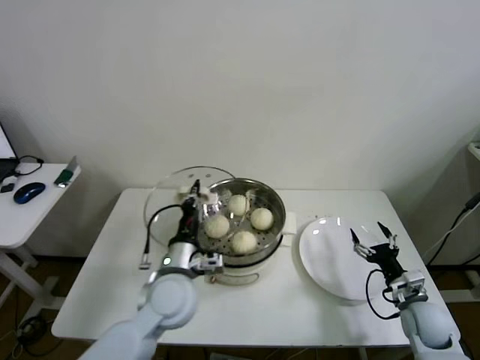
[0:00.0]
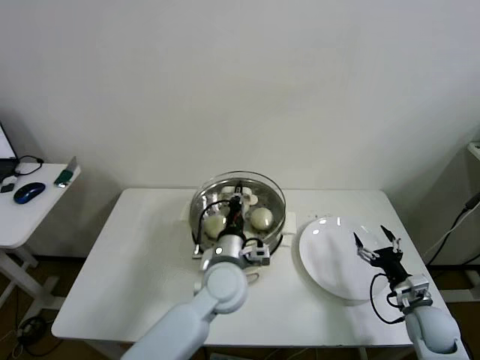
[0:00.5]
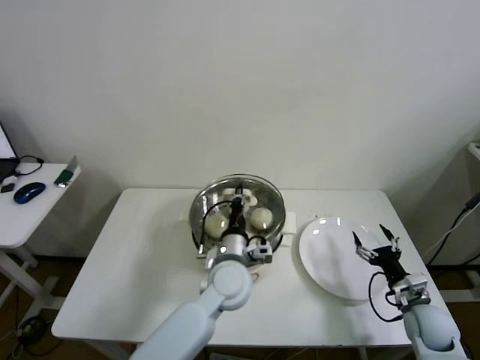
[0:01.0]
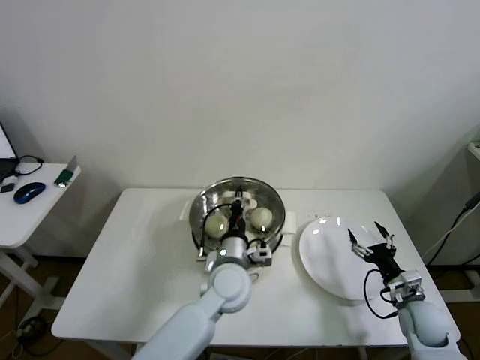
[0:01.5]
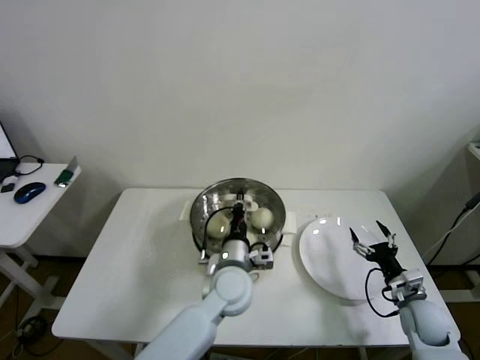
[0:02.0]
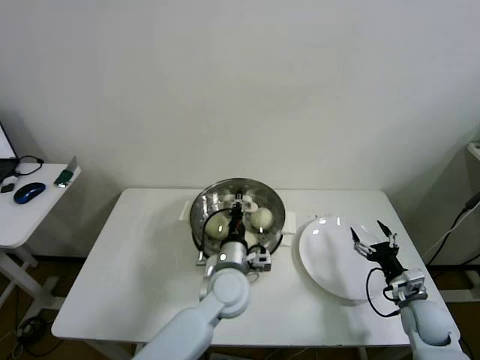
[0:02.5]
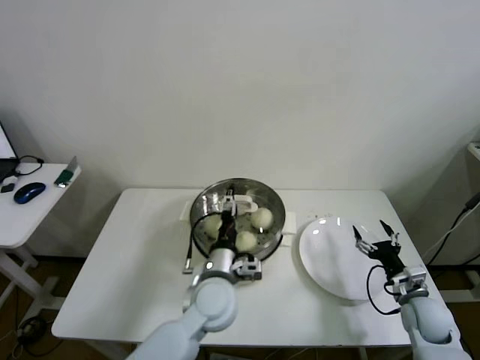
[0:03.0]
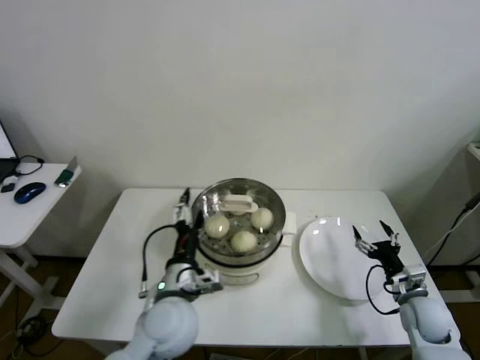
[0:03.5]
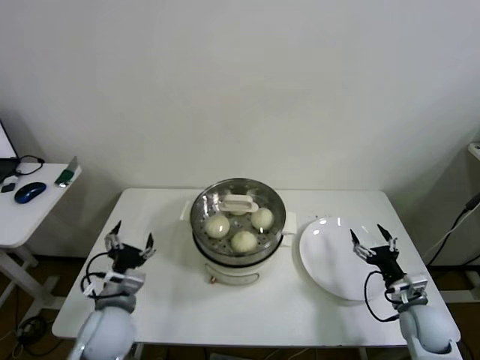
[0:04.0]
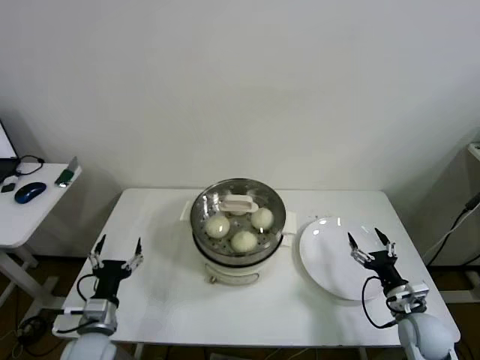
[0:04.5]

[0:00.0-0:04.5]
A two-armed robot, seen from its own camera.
Step, 0.0 to 3.0 s: Place the pot lid on the steamer with left gripper.
0.0 to 2.0 s: The left gripper travels to the right by some 10 cm.
2.0 to 4.5 s: The left gripper heads to the left, covering approximately 30 cm, and opens its fingers.

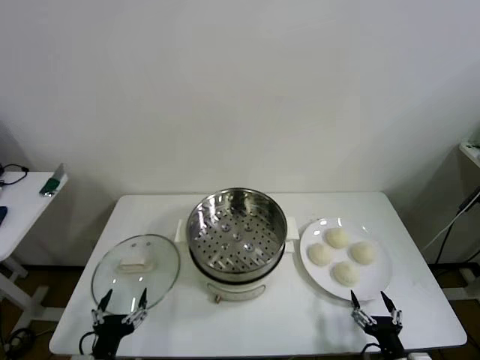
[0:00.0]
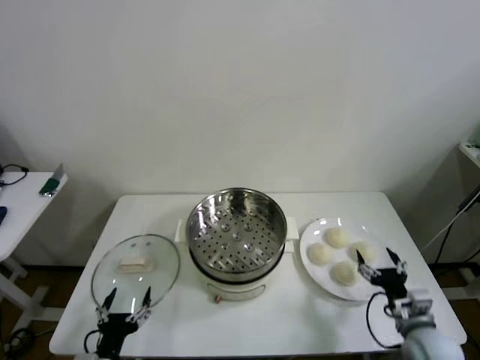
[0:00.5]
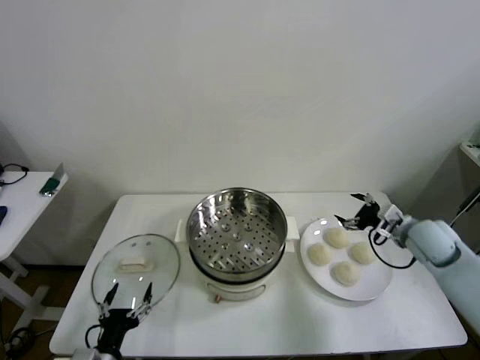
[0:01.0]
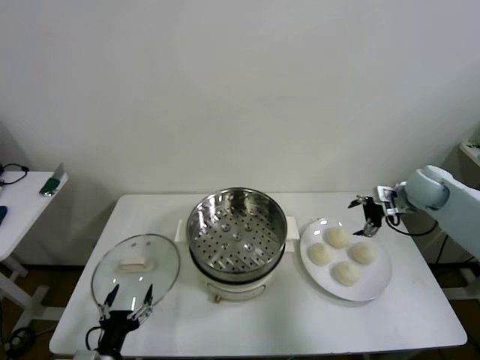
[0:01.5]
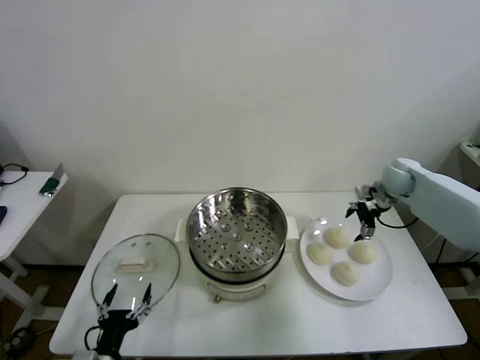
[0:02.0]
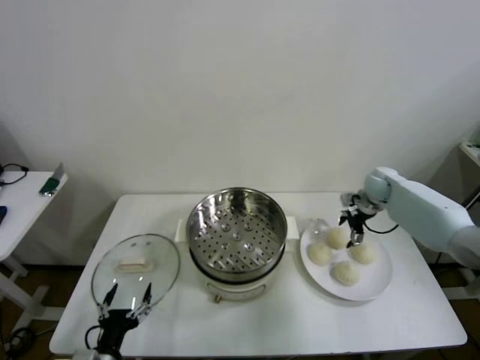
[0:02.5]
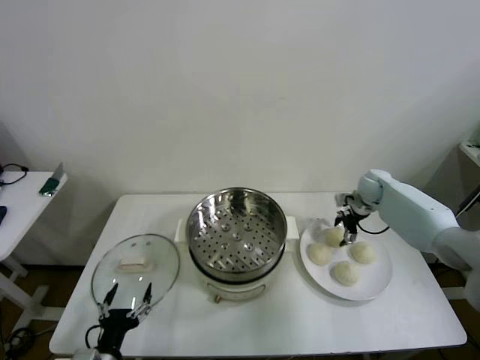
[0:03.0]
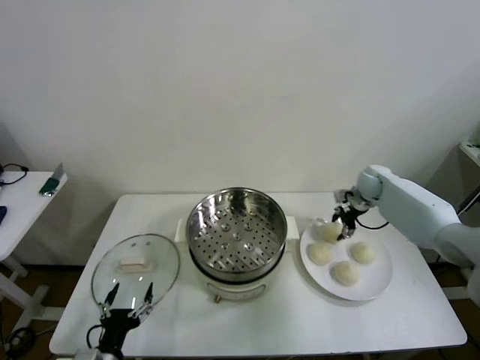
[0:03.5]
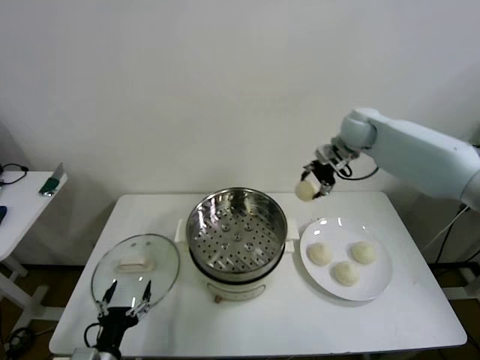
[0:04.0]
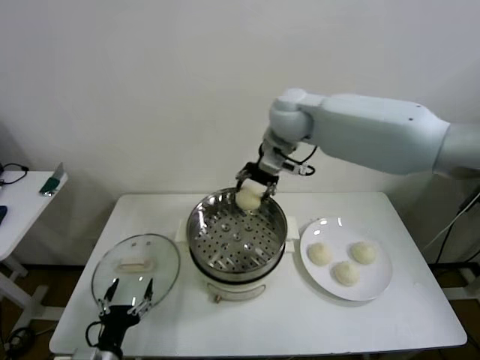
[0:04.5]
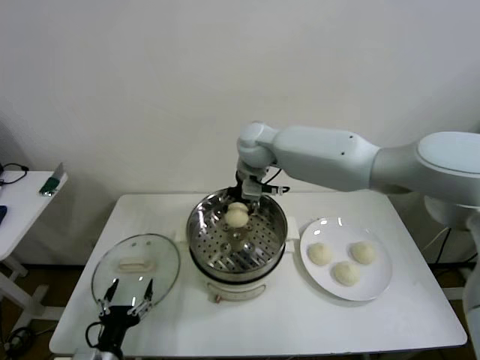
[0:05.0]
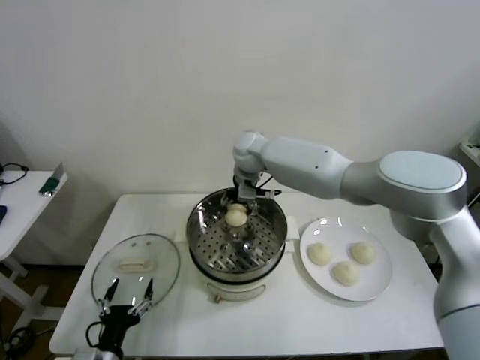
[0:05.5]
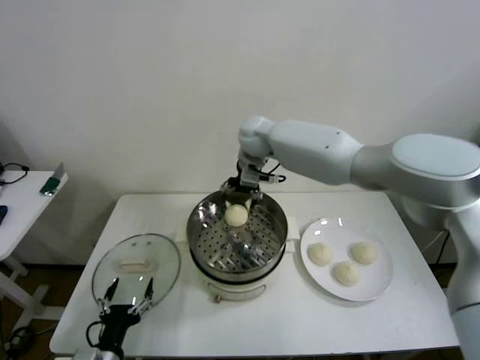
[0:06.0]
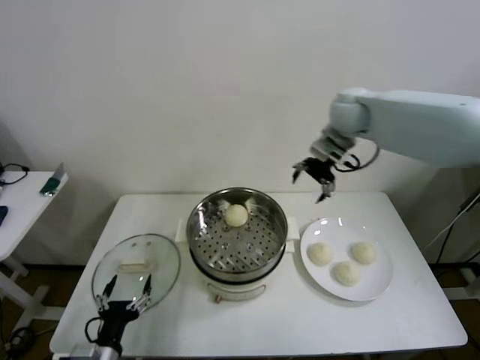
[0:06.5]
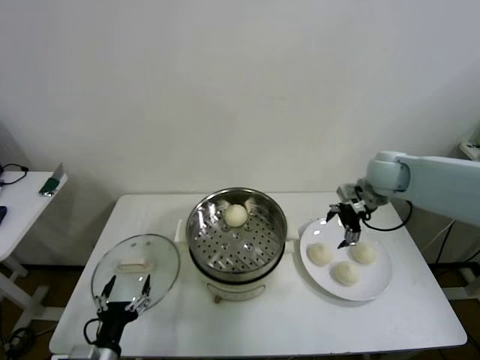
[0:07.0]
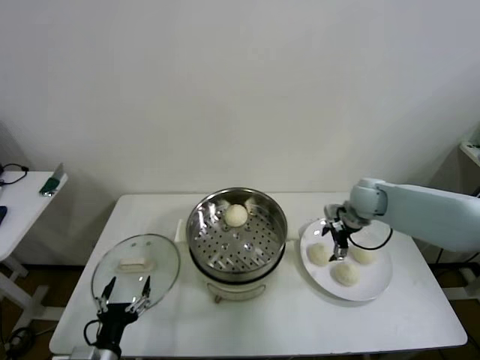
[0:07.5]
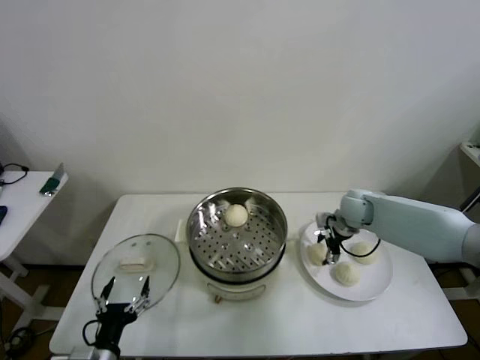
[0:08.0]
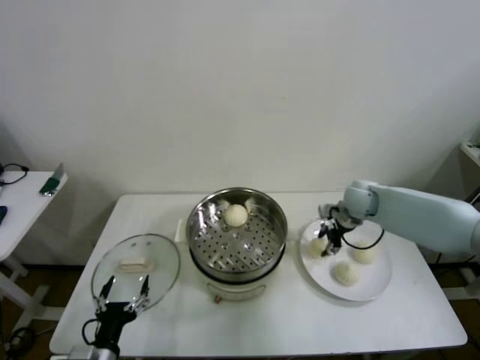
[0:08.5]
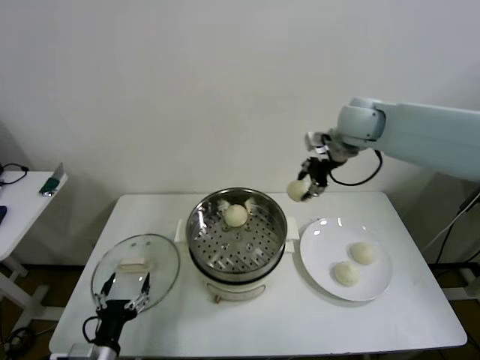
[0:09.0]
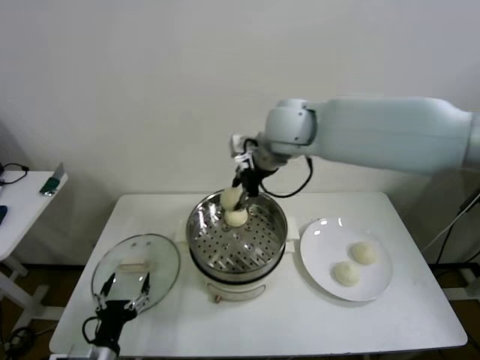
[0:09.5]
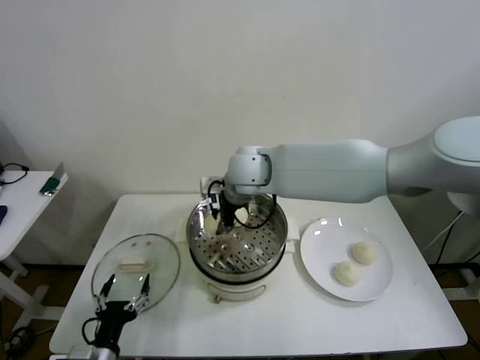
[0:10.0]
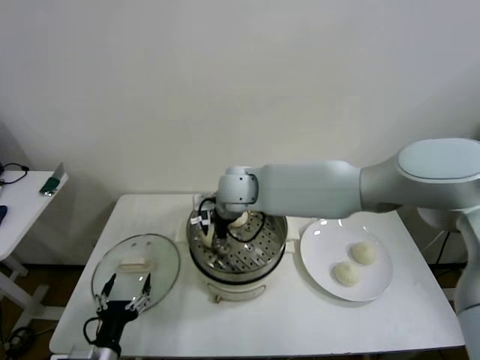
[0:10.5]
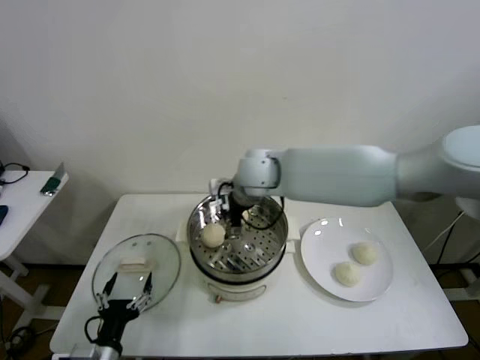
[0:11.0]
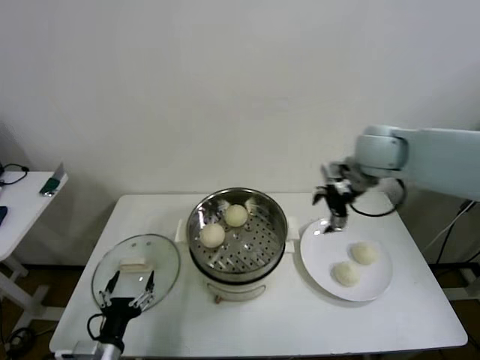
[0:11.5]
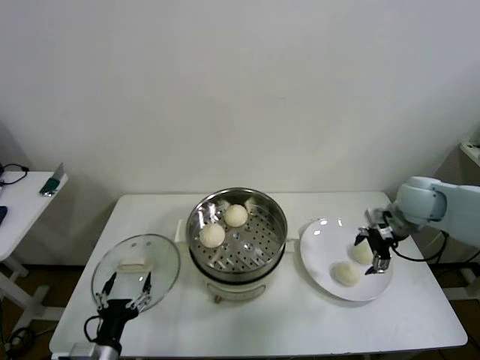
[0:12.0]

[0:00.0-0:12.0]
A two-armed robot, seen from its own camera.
Step, 0.0 to 3.0 s: Grasp the baozi in the plate with right gripper.
Step, 3.5 to 6.0 s: Place the baozi on the steamer with right gripper.
Step, 6.5 to 8.0 s: Grasp the baozi in the plate with right gripper.
Step, 8.5 to 10.5 s: Place the baozi on the steamer with right gripper.
2.0 to 4.0 s: The right gripper travels upward and to the left by approximately 25 cm, and closes up.
4.0 to 6.0 s: The right gripper heads to the left, covering approximately 20 cm, and opens its fingers.
6.0 to 8.0 s: The right gripper shifts some 30 cm to the right and downward, and closes.
8.0 to 10.0 s: The right gripper is displaced to the left and upward by about 35 cm, and closes up.
10.0 to 12.0 s: The right gripper heads to the right, covering roughly 35 cm, and opens.

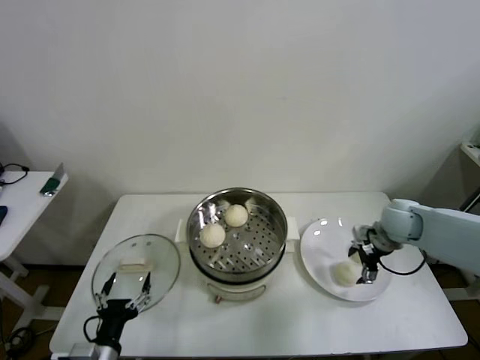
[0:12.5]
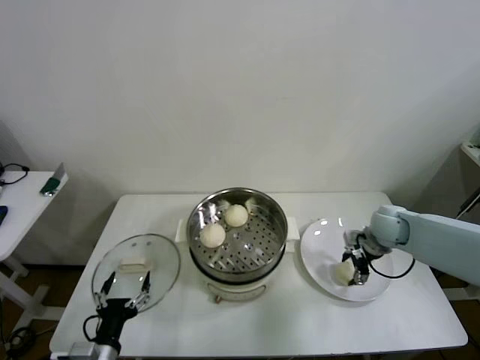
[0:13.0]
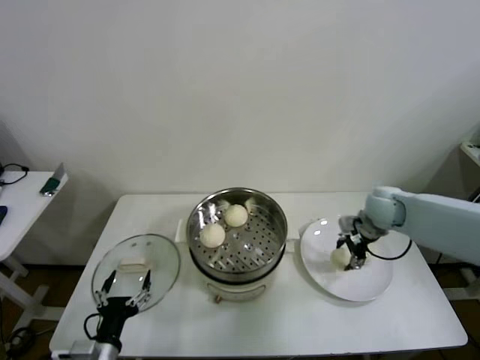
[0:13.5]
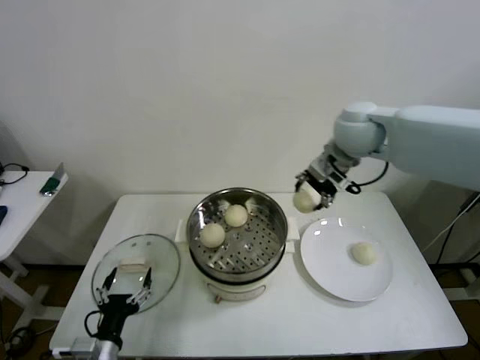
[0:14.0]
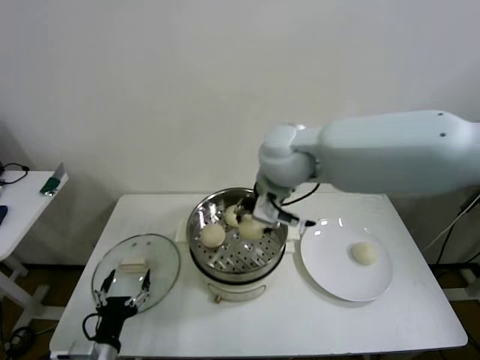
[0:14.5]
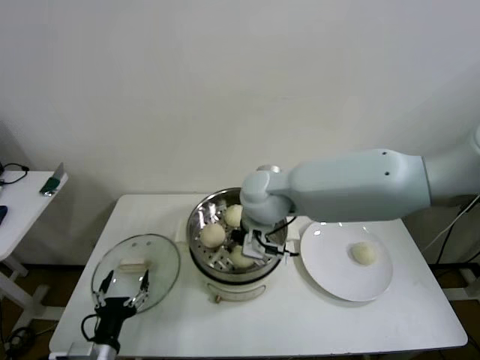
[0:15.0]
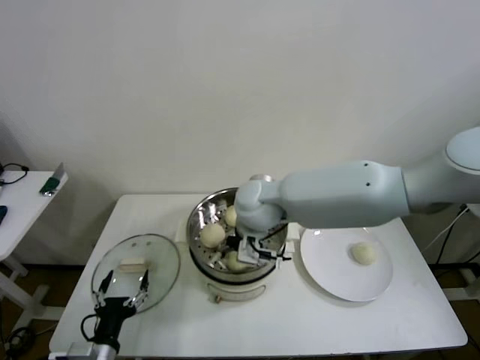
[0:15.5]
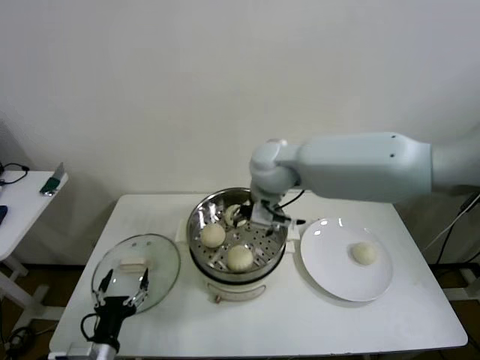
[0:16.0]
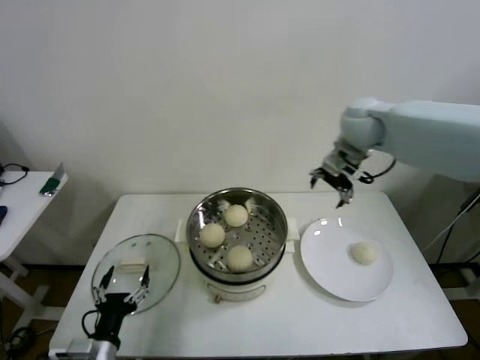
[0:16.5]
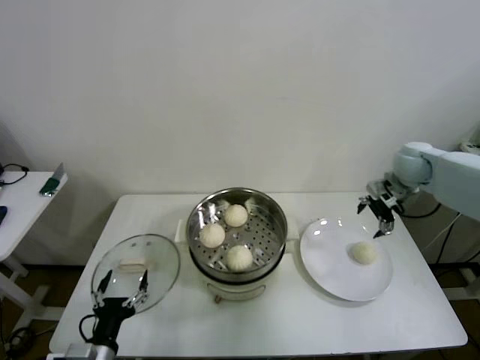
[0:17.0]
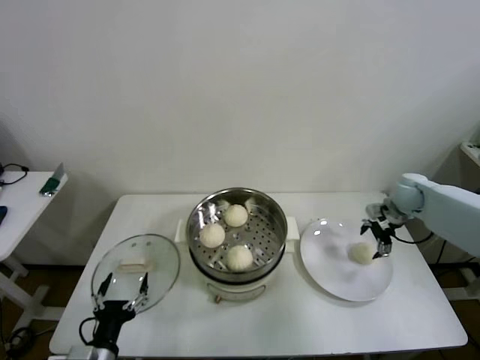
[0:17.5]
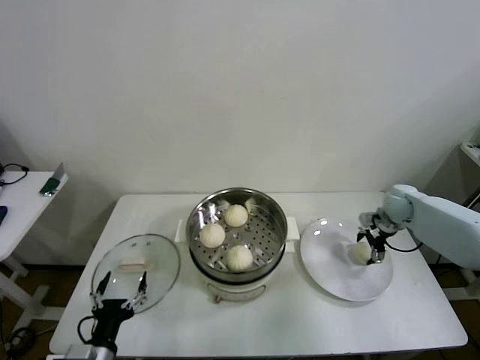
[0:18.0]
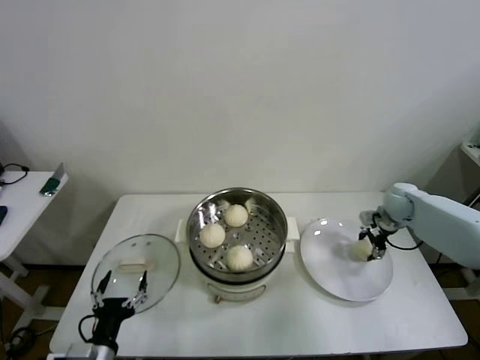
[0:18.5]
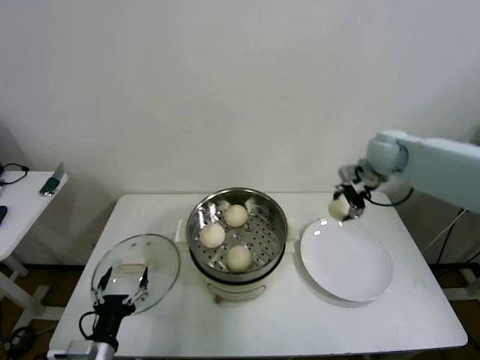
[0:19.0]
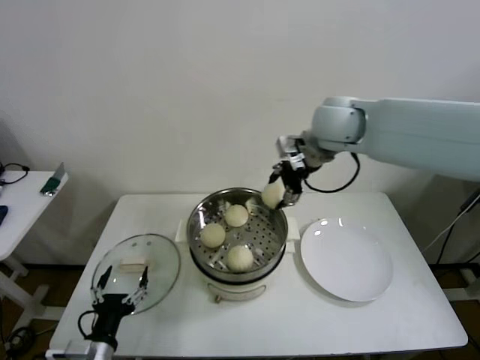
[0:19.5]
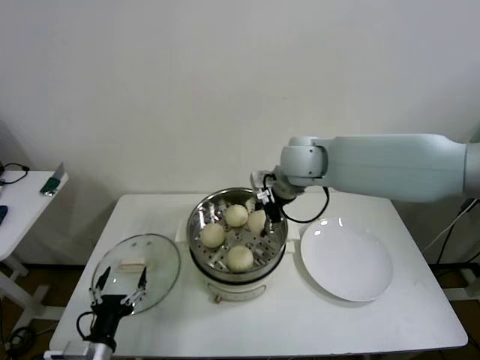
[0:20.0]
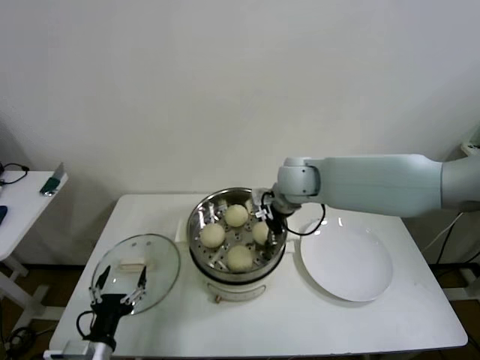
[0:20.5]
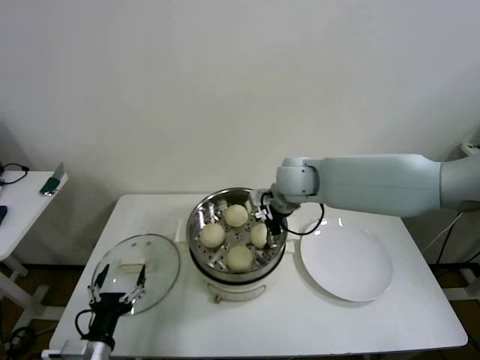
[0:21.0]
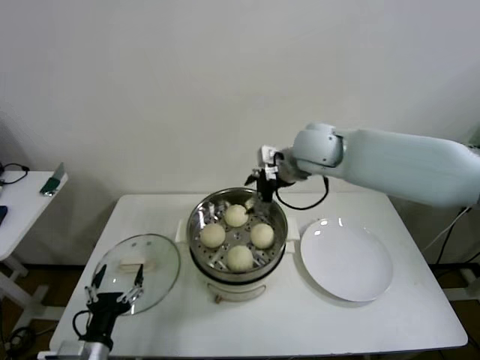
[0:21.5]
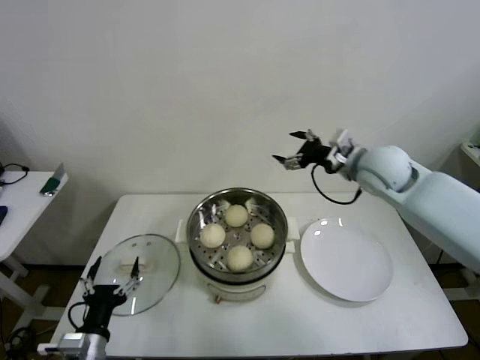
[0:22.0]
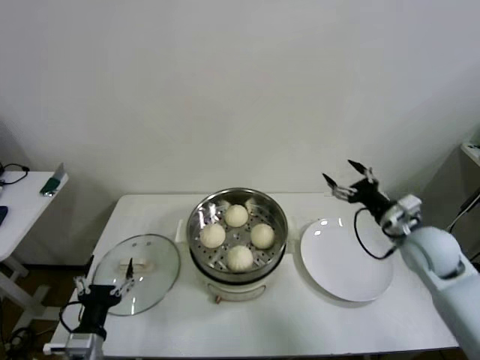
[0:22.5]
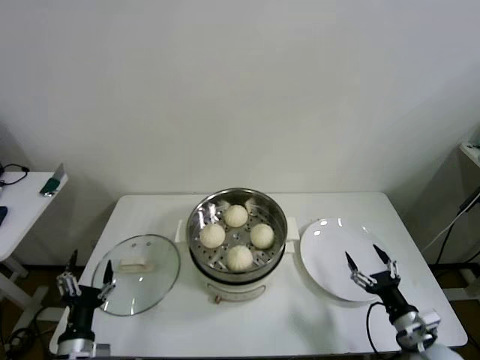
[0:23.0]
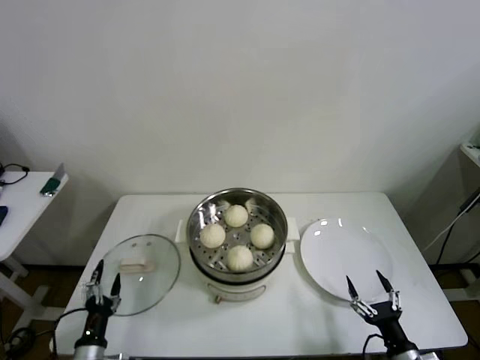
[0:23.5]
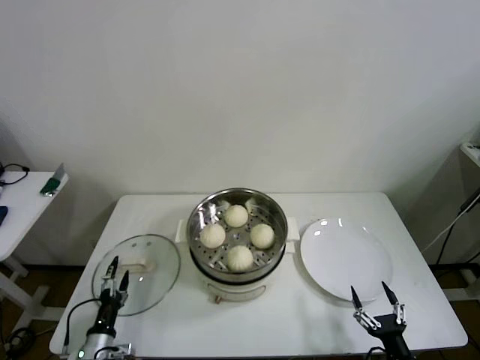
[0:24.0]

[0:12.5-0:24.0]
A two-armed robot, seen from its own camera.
Step, 13.5 to 15.5 s: Place the baozi on the steamer with right gripper.
Step, 16.0 to 18.0 s: Grasp the baozi in the plate with right gripper.
Step, 18.5 to 21.0 s: Place the baozi on the steamer with right gripper.
12.5 to 14.5 s: The right gripper moves to the left and upward, some 35 cm, and closes up.
14.5 to 16.5 s: The right gripper is displaced to the right and forward by about 25 cm, and opens its fingers.
16.5 to 18.5 s: The right gripper shifts about 30 cm downward and to the right, and closes up.
18.5 to 20.0 s: The right gripper is displaced to the left and upward by approximately 35 cm.
20.0 to 22.0 s: The right gripper shifts about 15 cm to the right, and opens its fingers.
22.0 to 24.0 s: The right gripper shifts some 50 cm backward and downward. The left gripper moves downward, roughly 15 cm.
